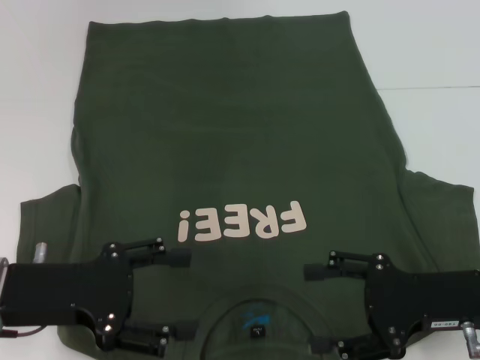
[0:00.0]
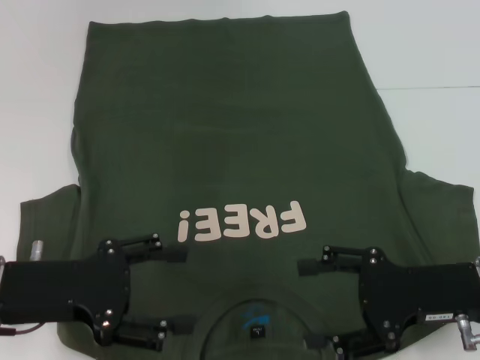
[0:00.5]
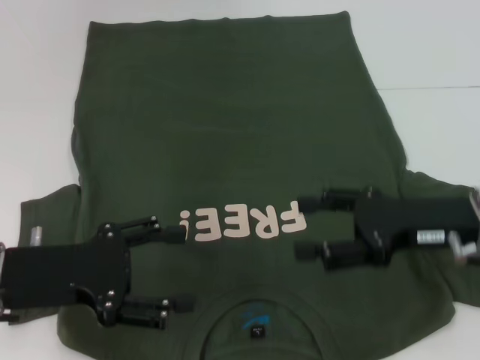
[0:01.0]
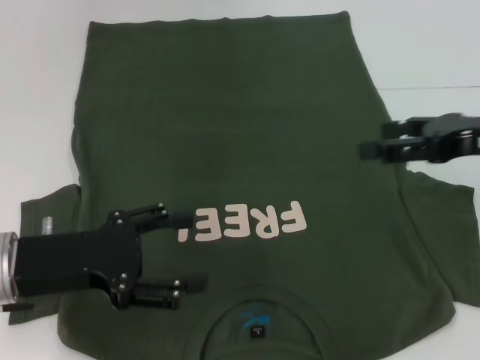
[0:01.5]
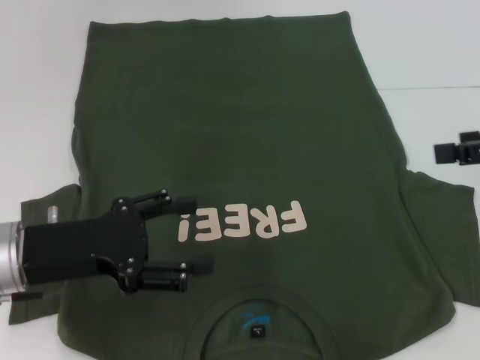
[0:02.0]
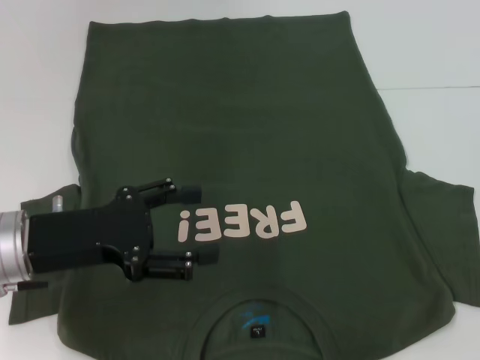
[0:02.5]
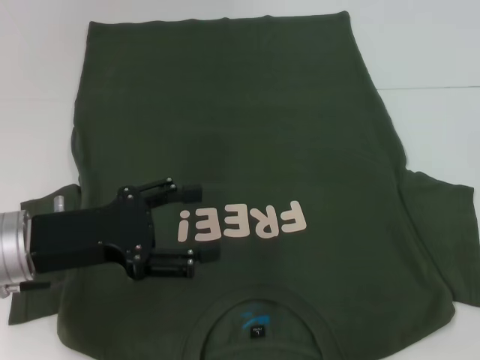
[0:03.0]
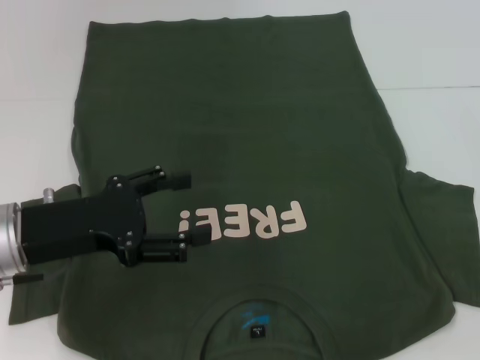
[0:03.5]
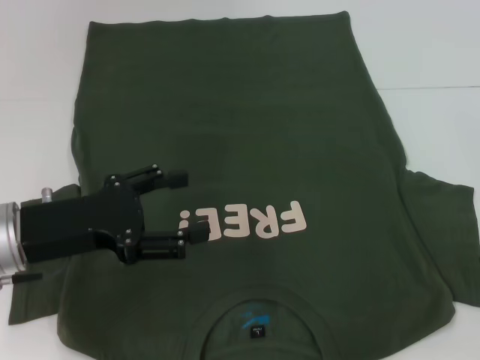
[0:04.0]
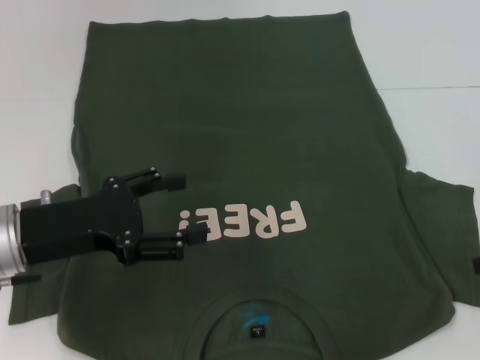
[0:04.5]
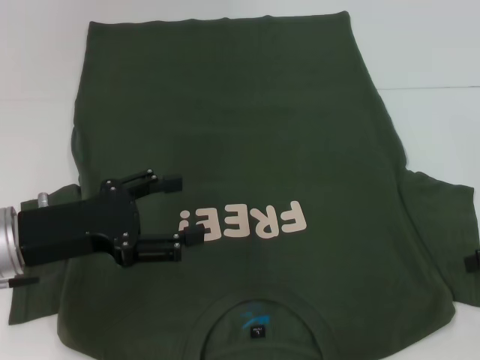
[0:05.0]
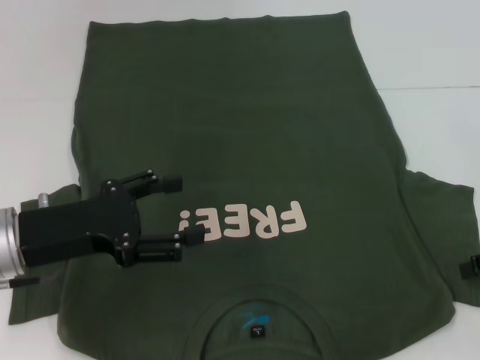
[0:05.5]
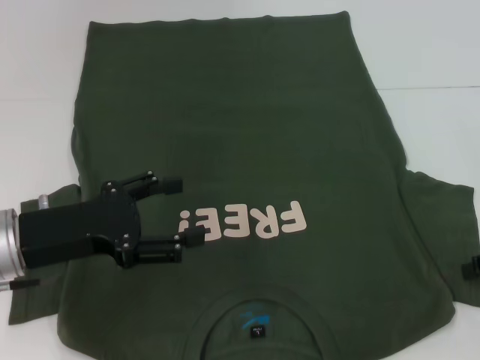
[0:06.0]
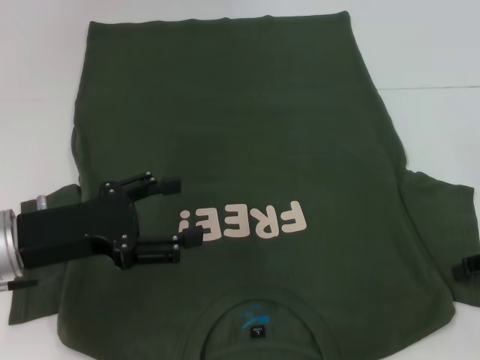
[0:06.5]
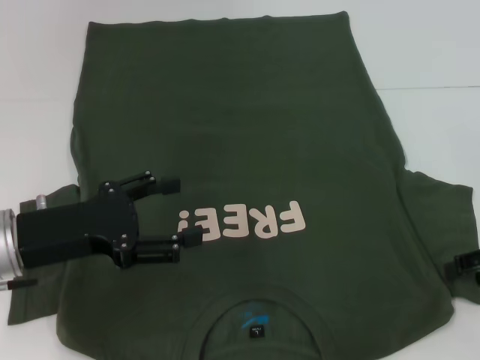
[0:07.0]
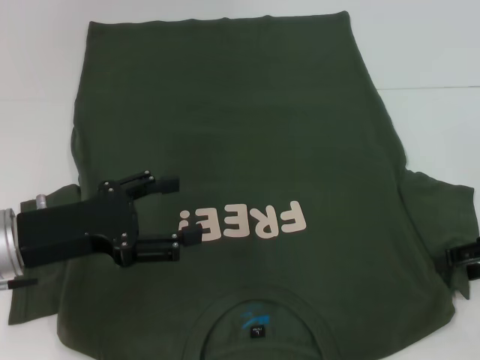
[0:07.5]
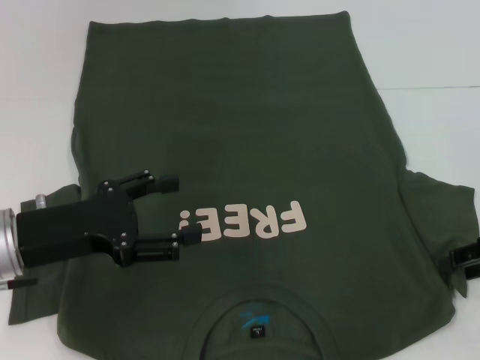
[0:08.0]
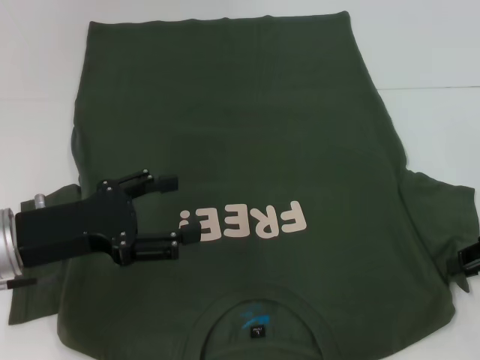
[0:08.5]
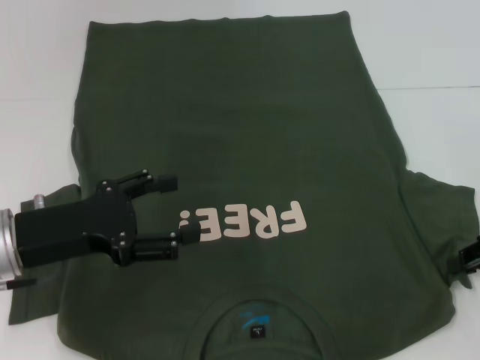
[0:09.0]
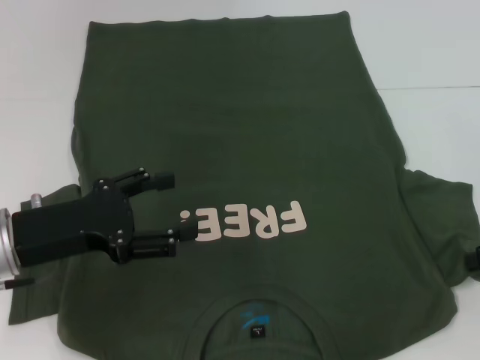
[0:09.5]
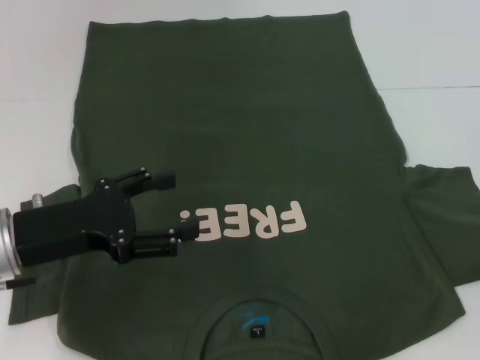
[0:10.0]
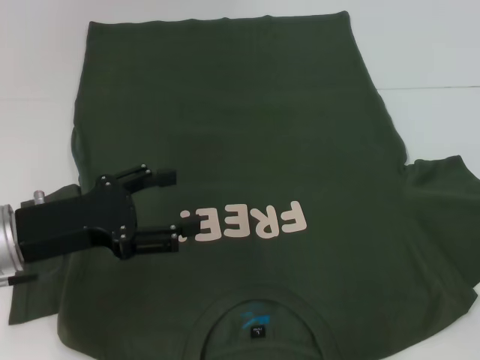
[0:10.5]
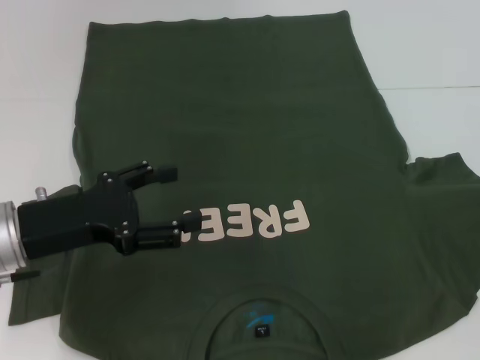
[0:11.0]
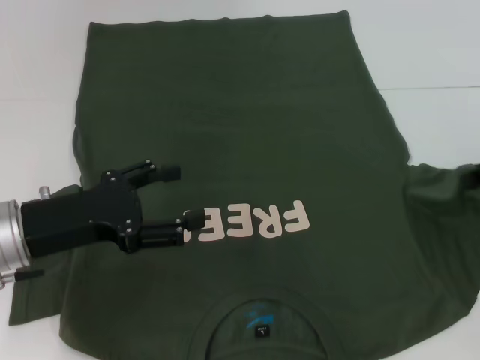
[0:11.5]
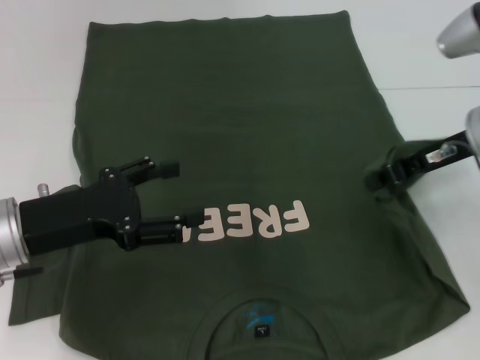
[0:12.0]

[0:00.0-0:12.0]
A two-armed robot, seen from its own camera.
0:00.0 to 0:02.0: The right gripper is displaced upward and to the right by approximately 15 cm.
0:02.0 to 0:04.0: The right gripper heads downward, covering roughly 10 cm.
0:04.0 to 0:08.0: The grippers move only a little.
0:08.0 to 0:10.0: The right gripper closes.
0:10.0 to 0:12.0: The right gripper shifts about 15 cm to the left and forward.

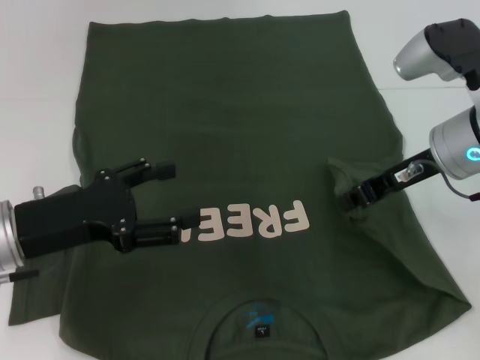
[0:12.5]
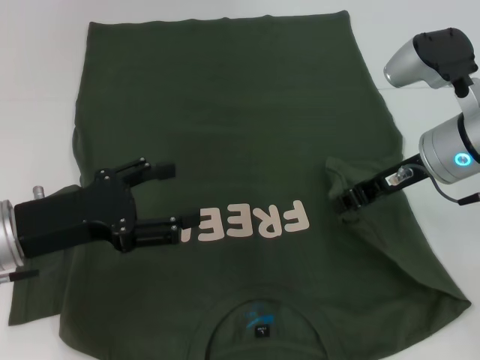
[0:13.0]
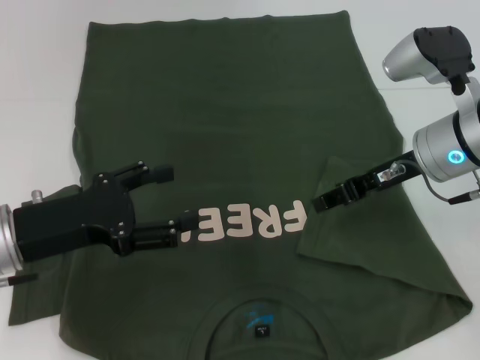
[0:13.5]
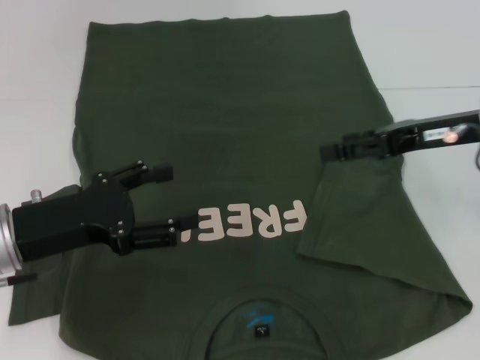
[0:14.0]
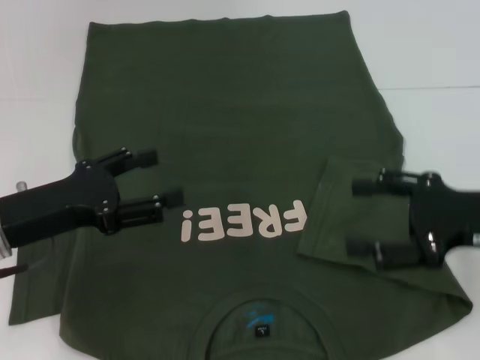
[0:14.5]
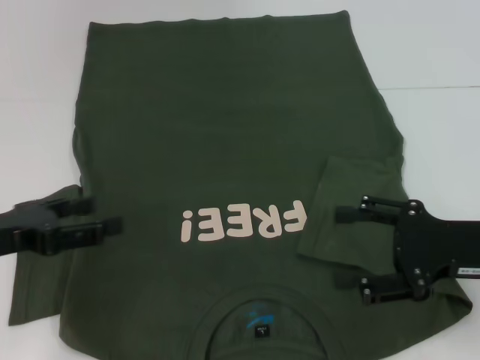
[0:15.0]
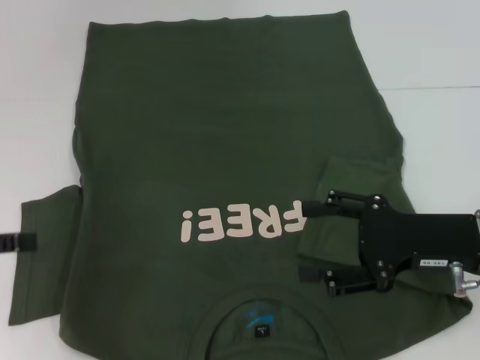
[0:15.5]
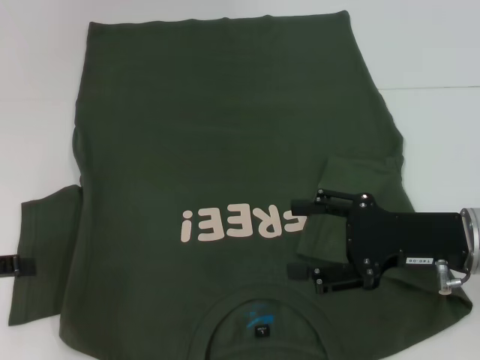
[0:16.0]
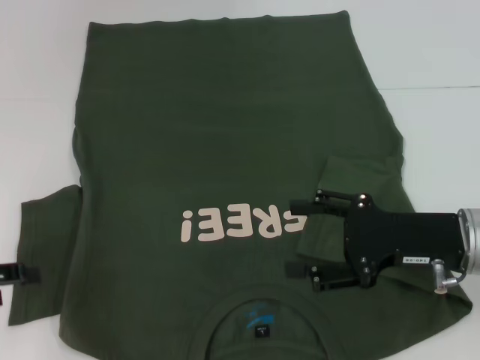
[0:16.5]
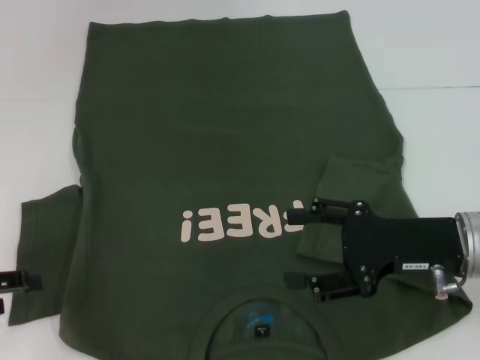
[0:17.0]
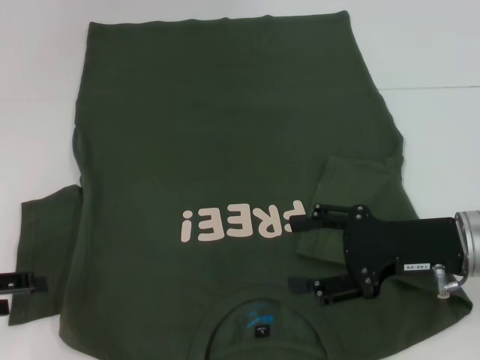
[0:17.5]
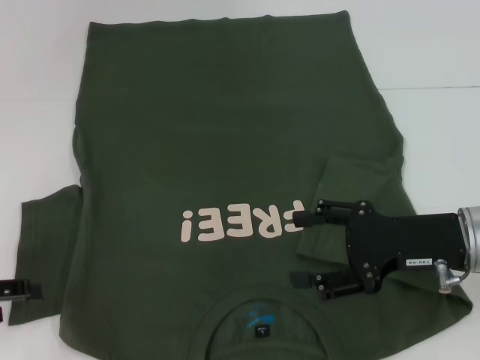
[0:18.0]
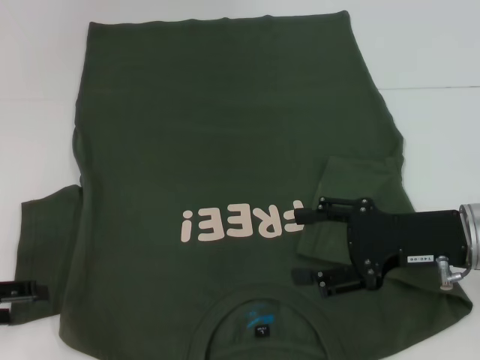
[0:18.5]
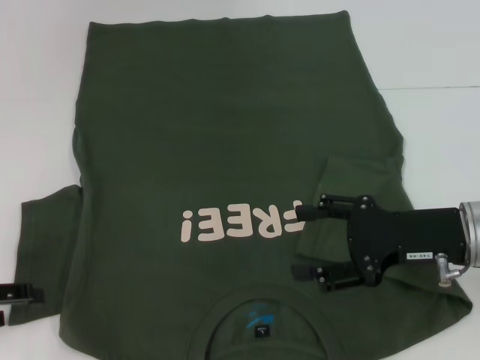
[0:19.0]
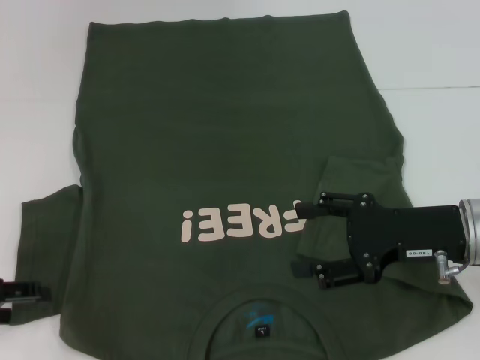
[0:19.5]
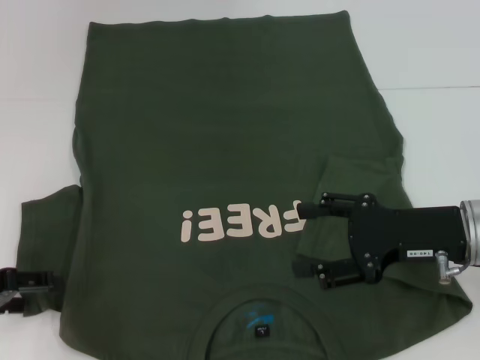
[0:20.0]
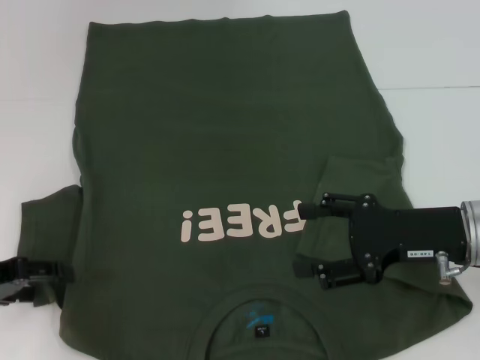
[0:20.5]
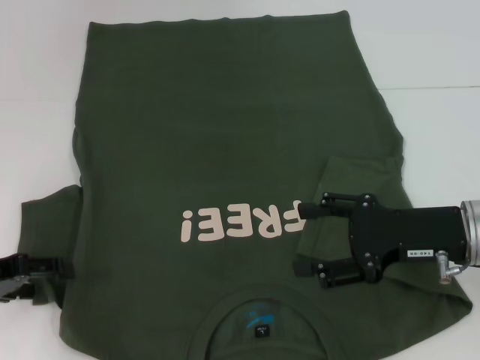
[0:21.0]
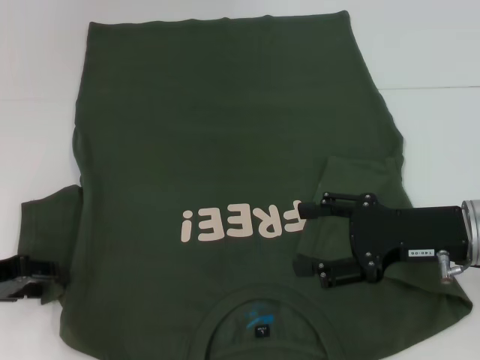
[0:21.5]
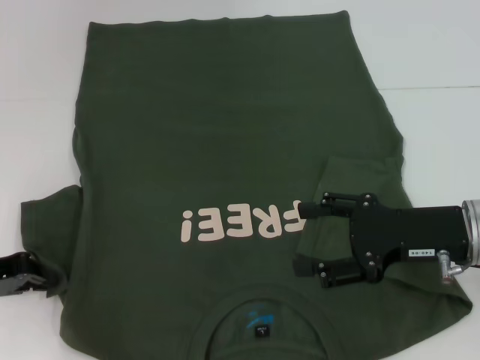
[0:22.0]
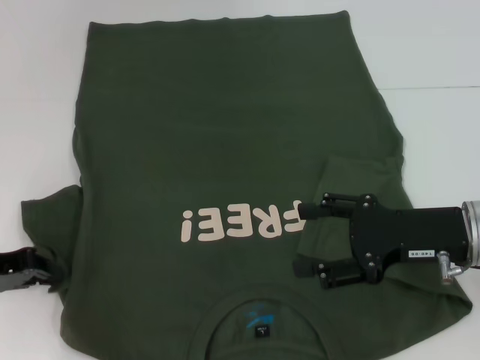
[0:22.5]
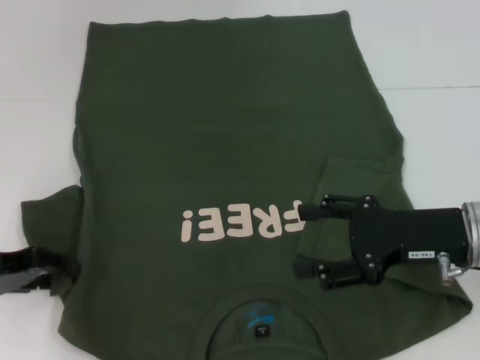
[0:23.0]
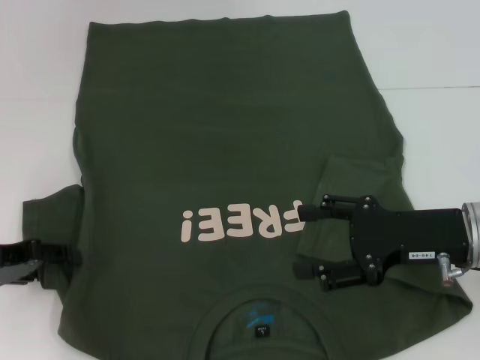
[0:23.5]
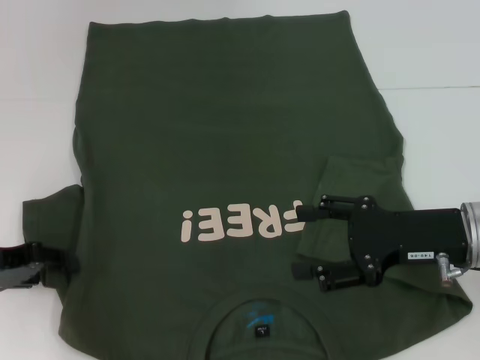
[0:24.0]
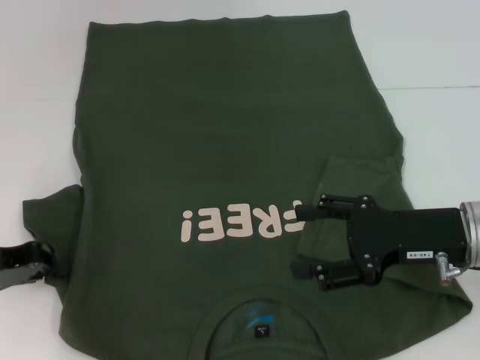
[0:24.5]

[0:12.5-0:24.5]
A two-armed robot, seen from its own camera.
0:12.5 to 0:14.5: The right gripper goes approximately 10 cm backward and to the right, and opens.
0:14.5 to 0:16.5: The left gripper goes about 10 cm to the left. The right gripper ends up roughly 5 cm from where it was.
0:16.5 to 0:20.5: The grippers stay close to where they were, moving slightly.
0:20.5 to 0:22.5: The left gripper closes up.
0:22.5 to 0:24.5: The left gripper opens, then closes once more.

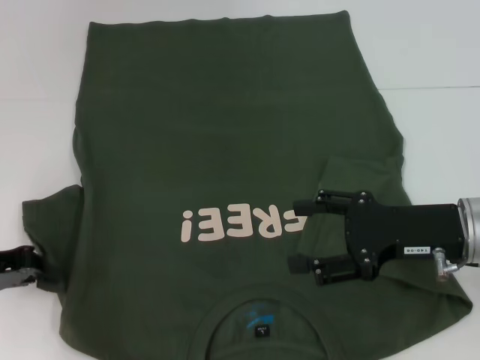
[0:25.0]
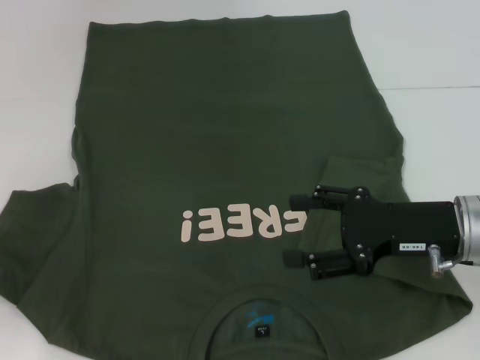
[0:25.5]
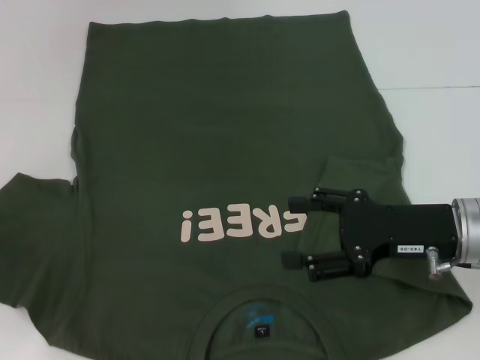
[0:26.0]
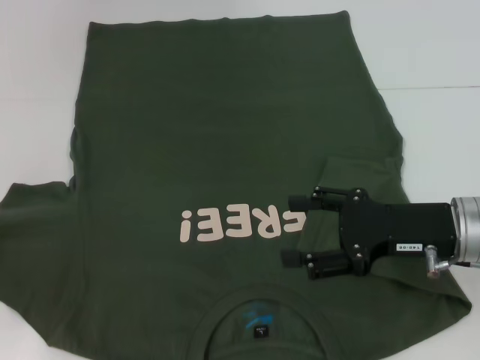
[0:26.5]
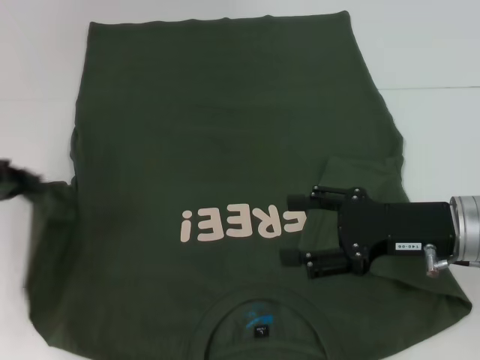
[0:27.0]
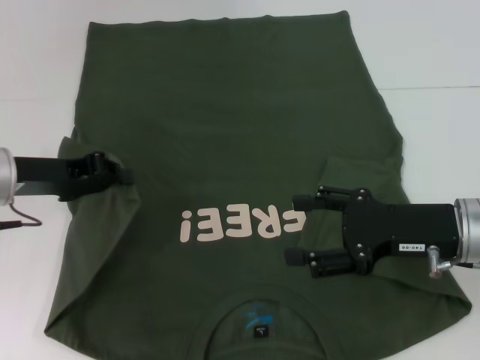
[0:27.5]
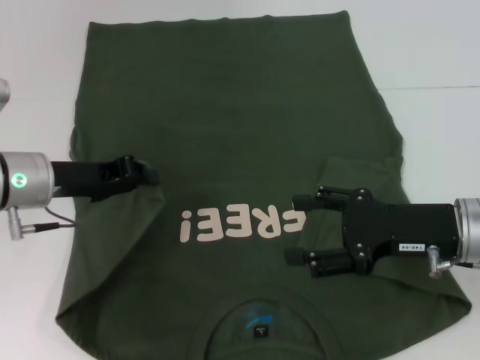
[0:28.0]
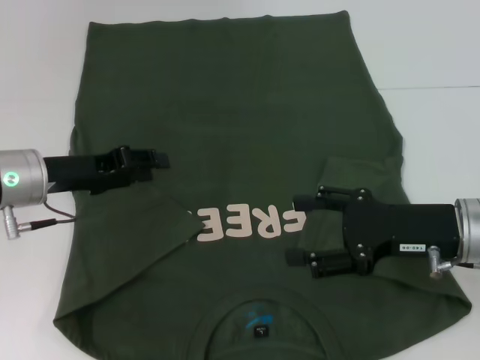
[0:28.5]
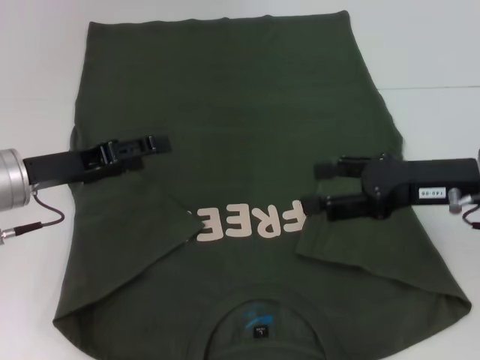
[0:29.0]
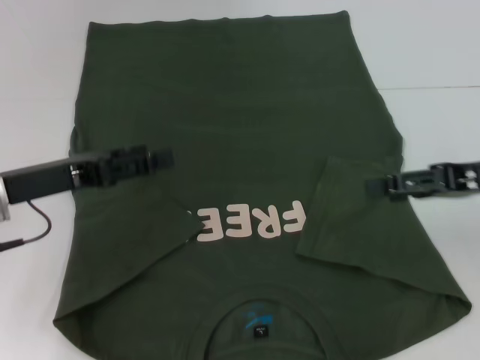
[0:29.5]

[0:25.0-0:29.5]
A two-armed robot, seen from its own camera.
Step, 0:25.0 to 0:28.5: Fold the bottom left sleeve with your left hand.
0:25.0 to 0:27.0: The left gripper heads upward, covering approximately 5 cm.
0:27.0 to 0:29.5: The right gripper is displaced upward and to the right by approximately 10 cm. Meanwhile the left gripper moves to the right, some 10 cm, and opens its fingers.
